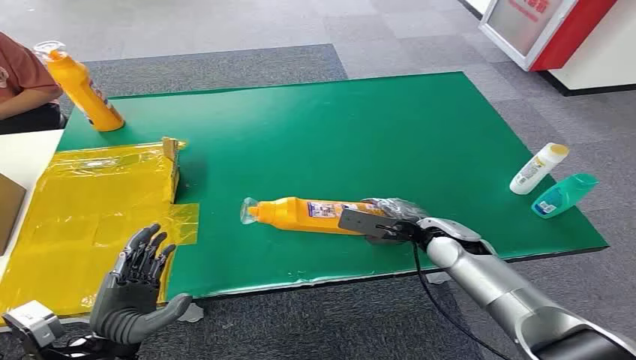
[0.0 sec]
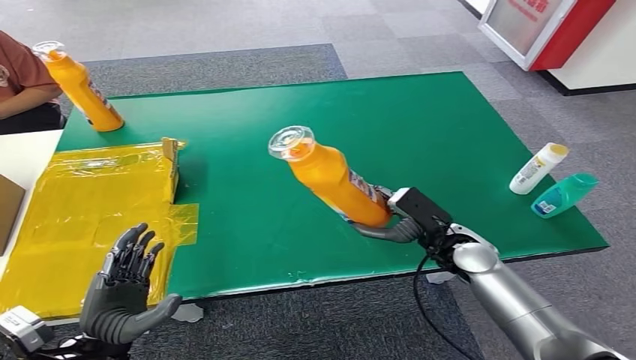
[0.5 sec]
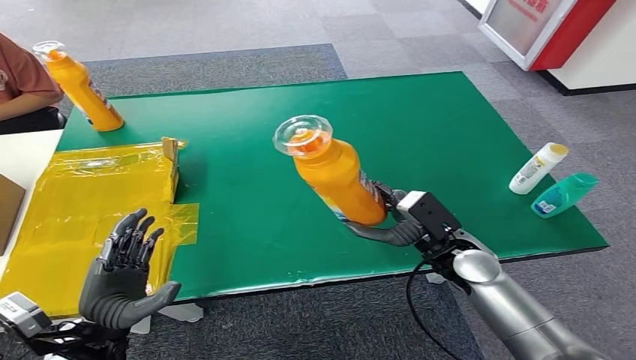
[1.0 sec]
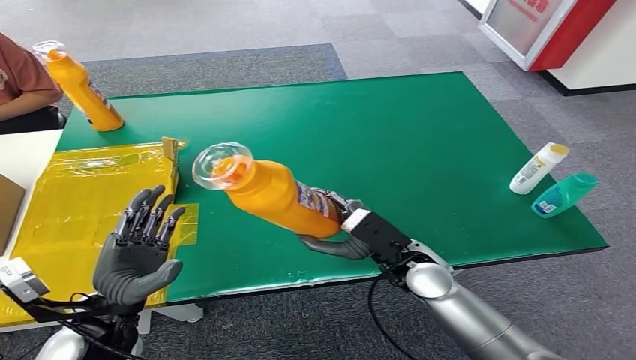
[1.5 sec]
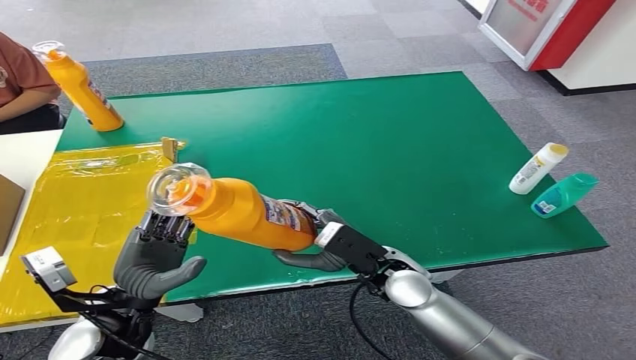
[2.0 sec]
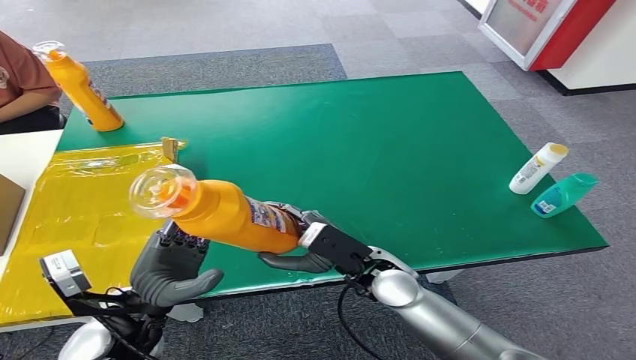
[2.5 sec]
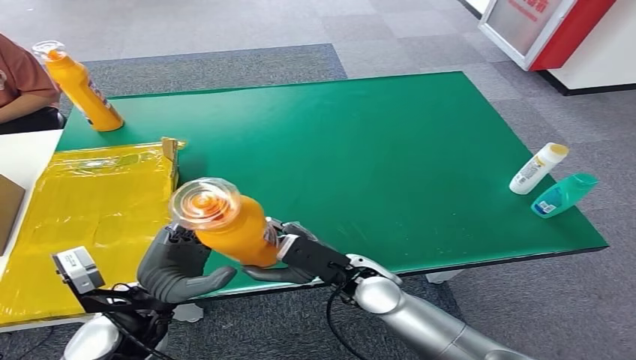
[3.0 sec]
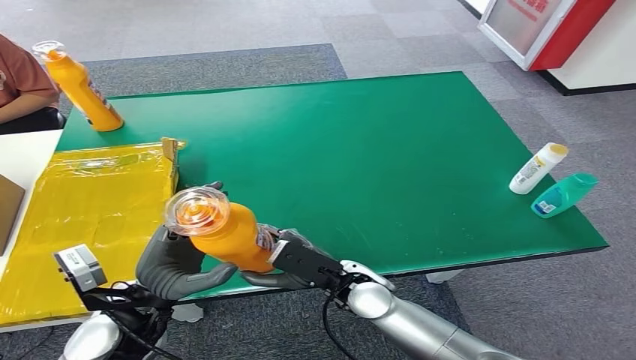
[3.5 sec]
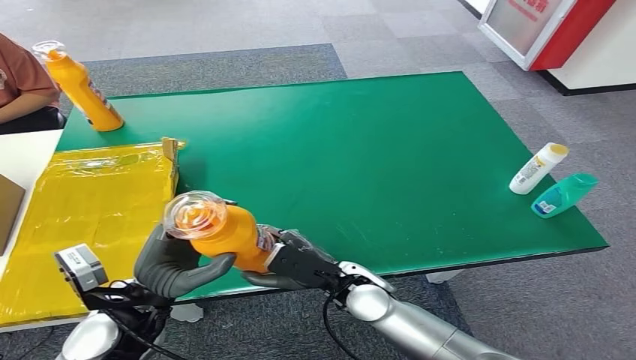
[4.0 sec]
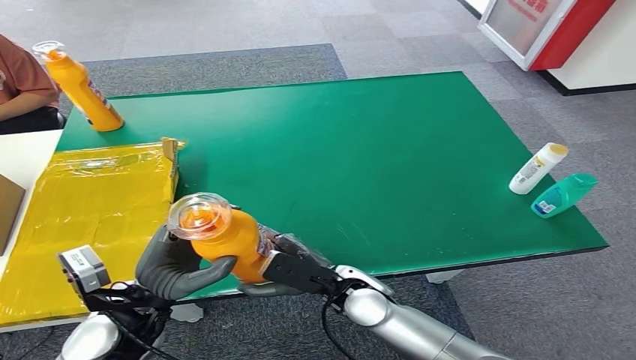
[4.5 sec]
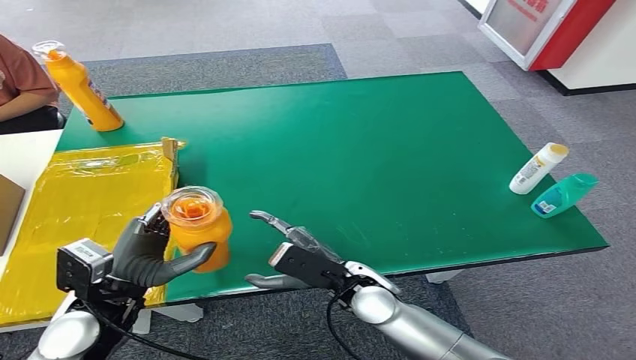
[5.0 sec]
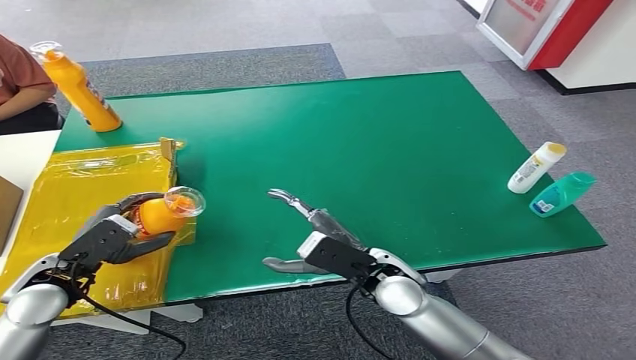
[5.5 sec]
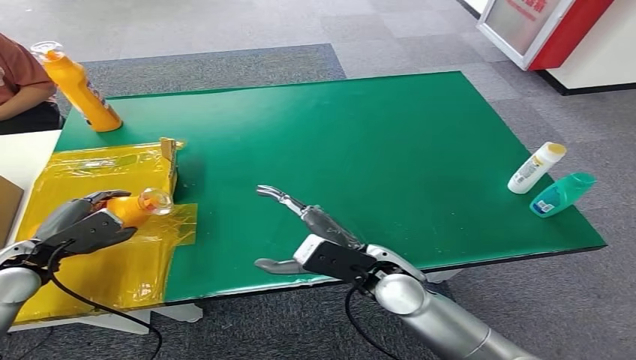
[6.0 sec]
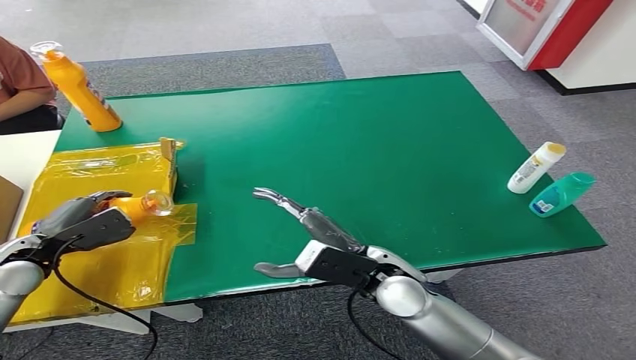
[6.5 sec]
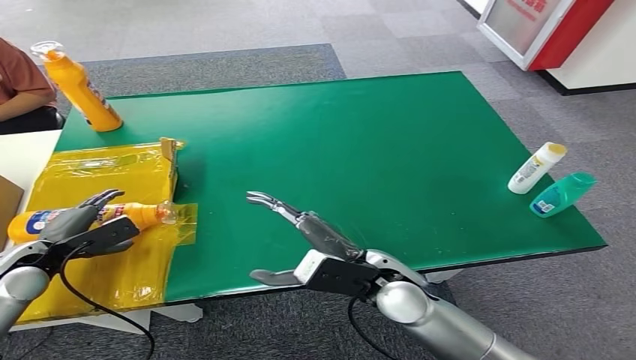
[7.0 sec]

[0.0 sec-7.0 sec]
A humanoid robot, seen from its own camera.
Step, 0.0 sec to 1.5 sec: Pick up the bottle from the table.
Step, 2.0 sec to 7.0 sec: Turn the bottle to the front side.
2.0 sec to 3.5 sec: The right hand heads to the left, covering roughly 5 cm.
5.0 sec to 7.0 sec: The left hand moves to the left and forward, approximately 20 cm, while the right hand heads upward, covering about 5 cm.

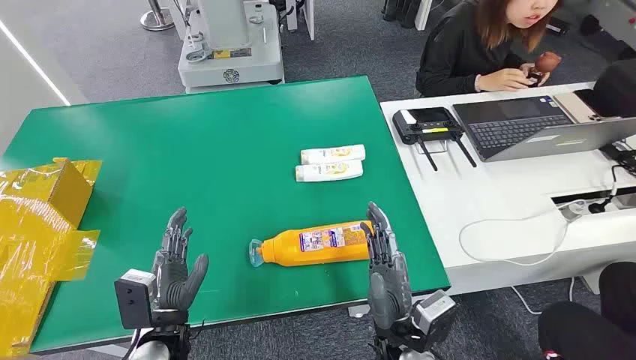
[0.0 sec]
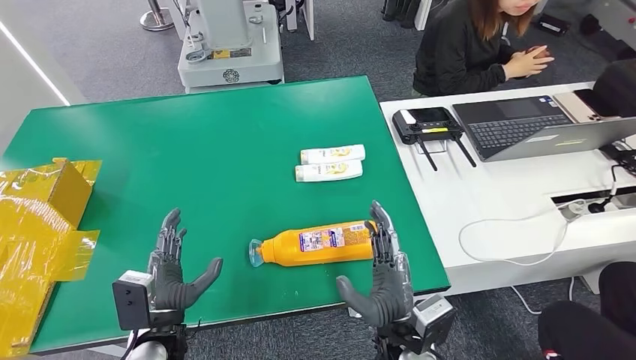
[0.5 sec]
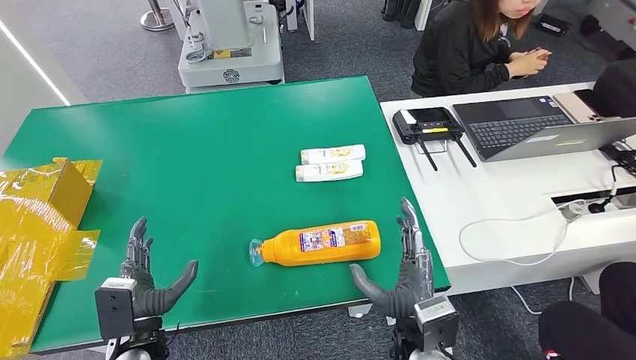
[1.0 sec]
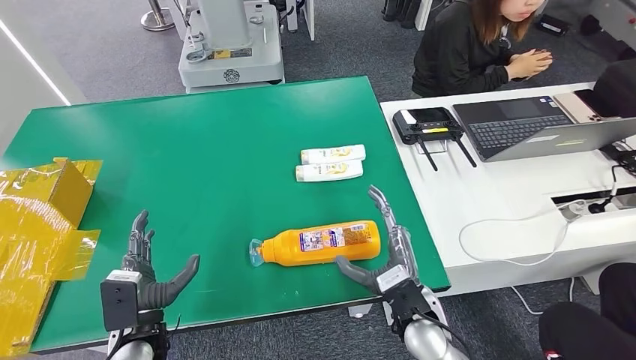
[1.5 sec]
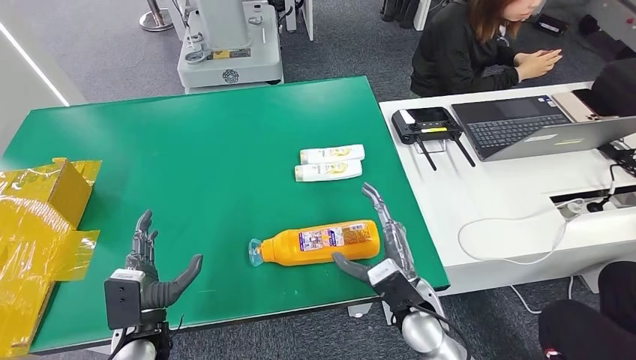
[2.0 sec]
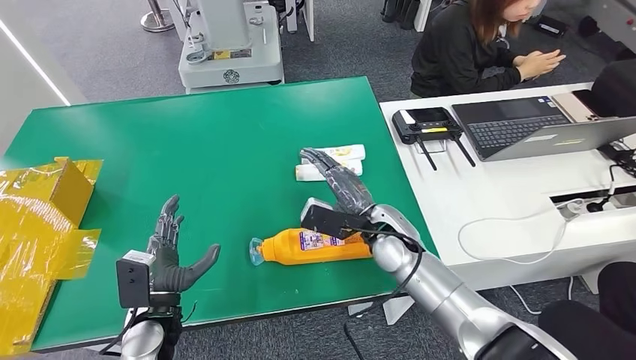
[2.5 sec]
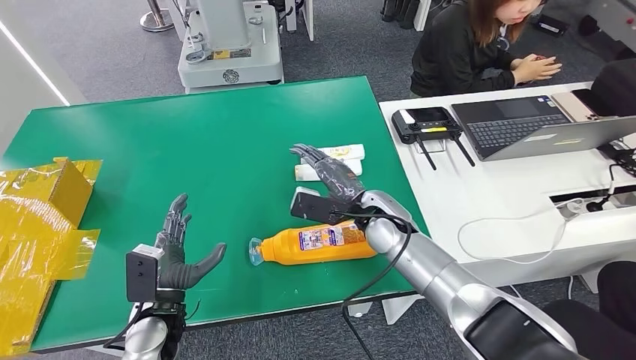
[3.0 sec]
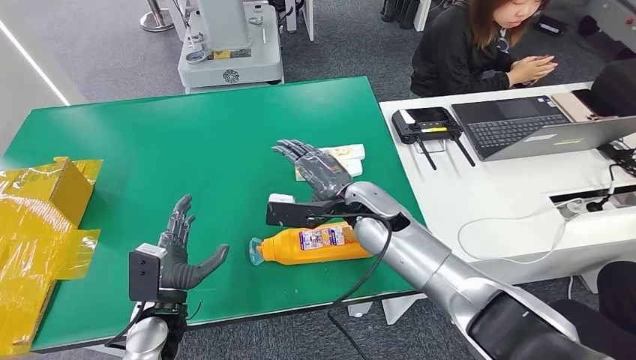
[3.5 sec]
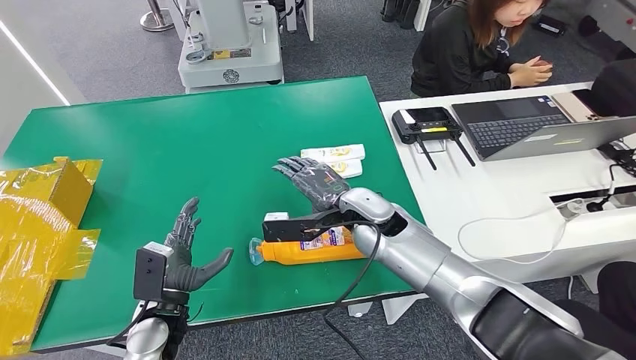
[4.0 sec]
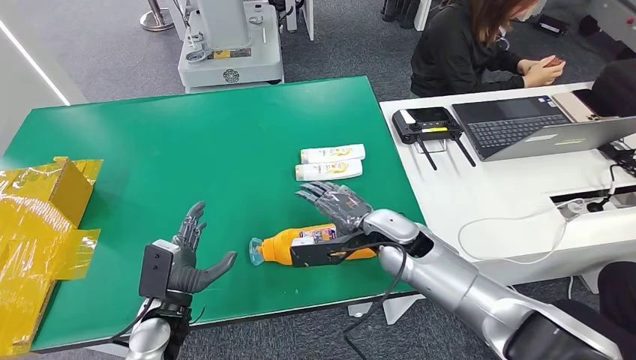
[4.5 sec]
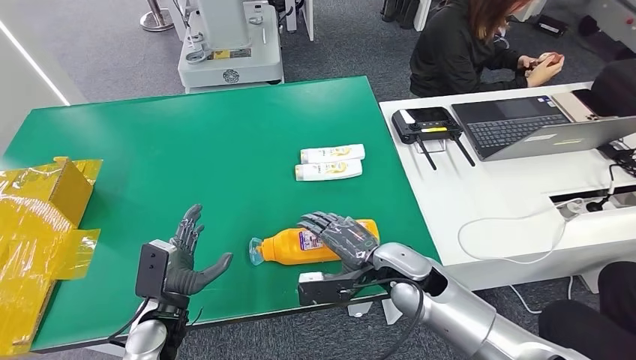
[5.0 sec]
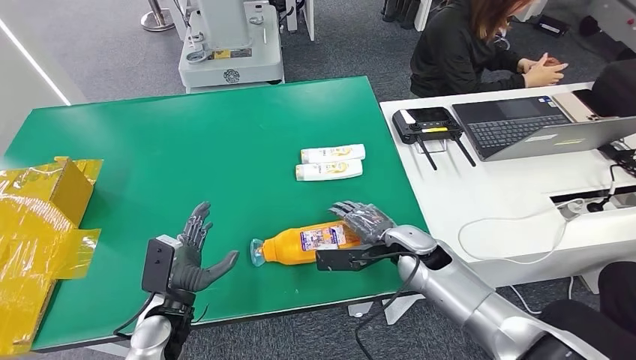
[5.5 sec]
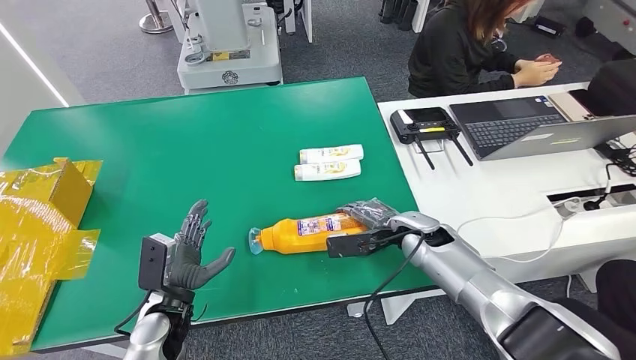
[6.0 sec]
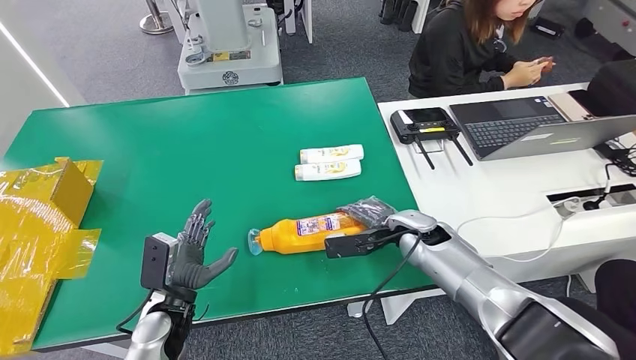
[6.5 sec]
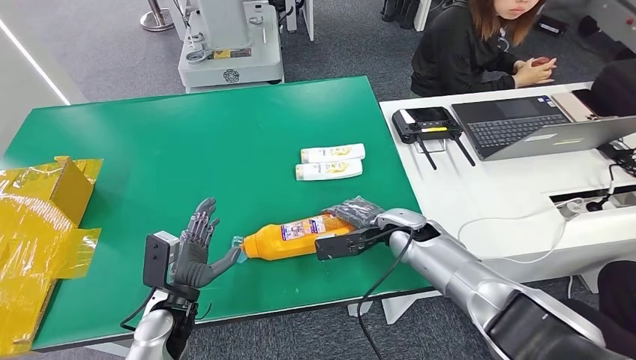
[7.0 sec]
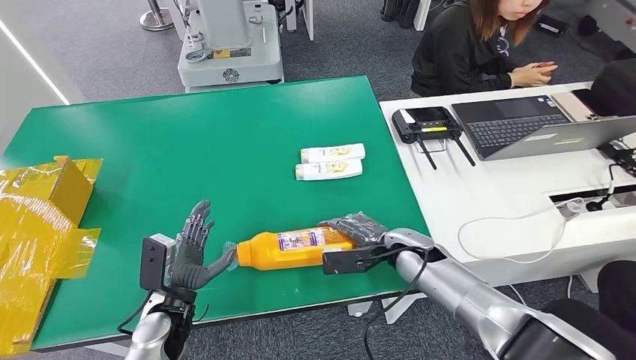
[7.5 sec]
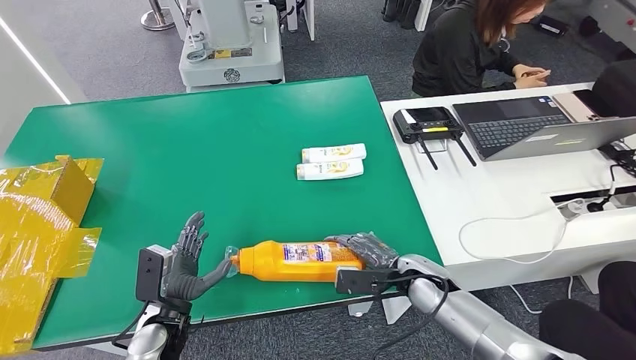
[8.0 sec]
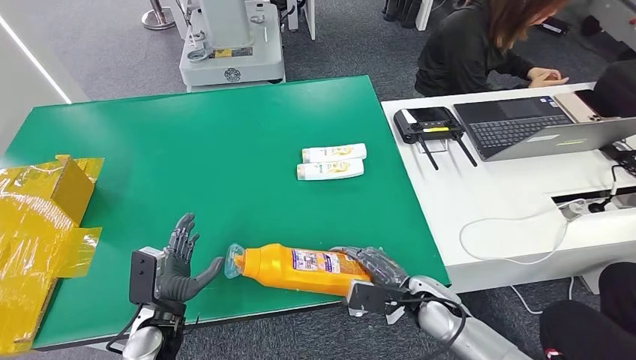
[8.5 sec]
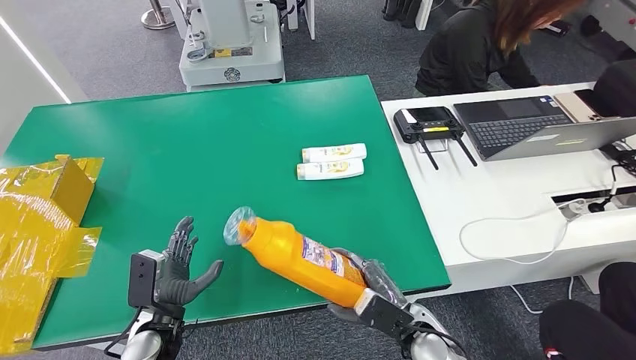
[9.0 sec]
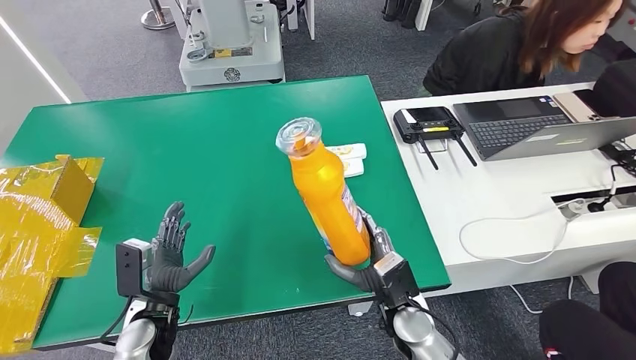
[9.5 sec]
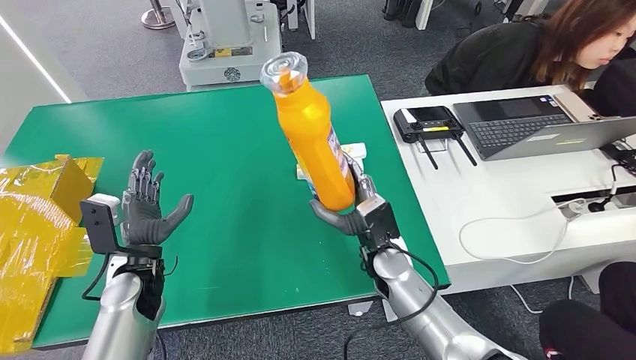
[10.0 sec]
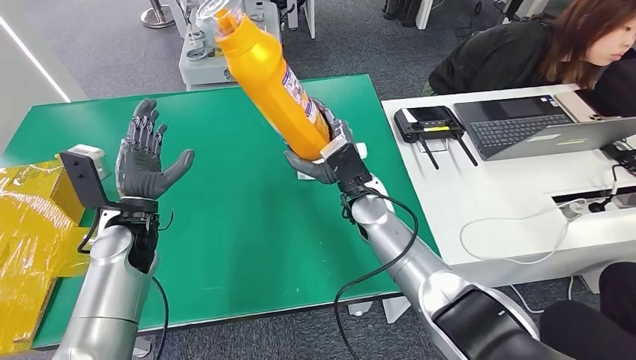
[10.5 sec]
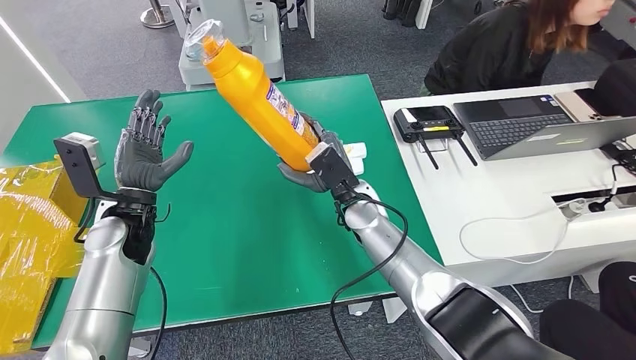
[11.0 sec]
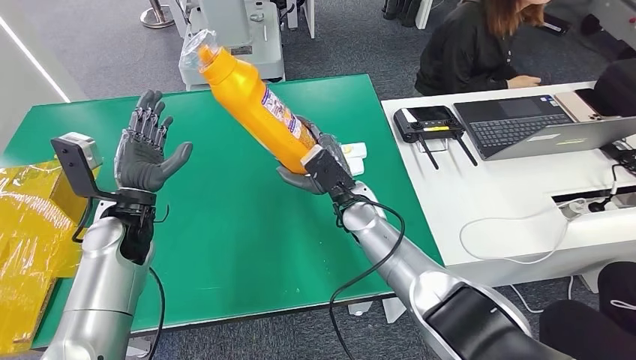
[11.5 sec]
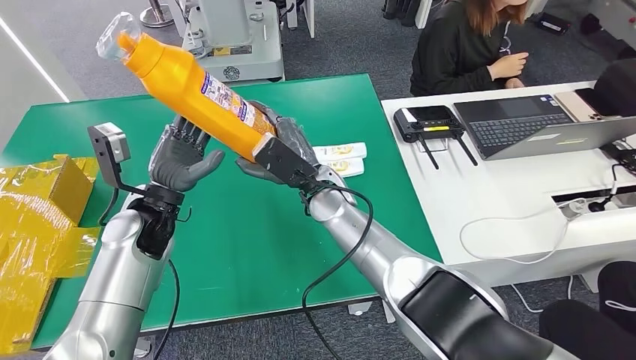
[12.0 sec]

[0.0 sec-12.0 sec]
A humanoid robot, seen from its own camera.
Step, 0.0 sec to 8.5 sec: Pick up the bottle from the table.
2.0 sec to 4.0 sec: The right hand is displaced forward and upward by some 20 cm.
4.0 sec to 6.0 sec: The right hand goes about 15 cm to the right and downward.

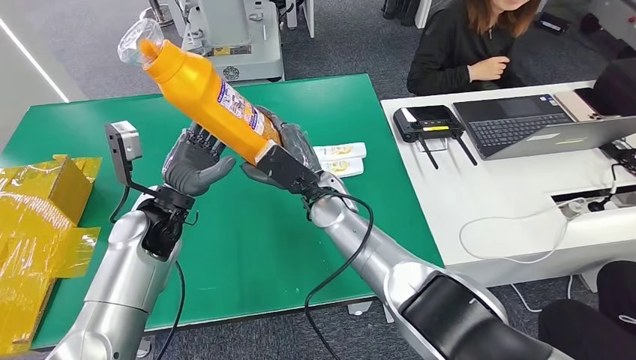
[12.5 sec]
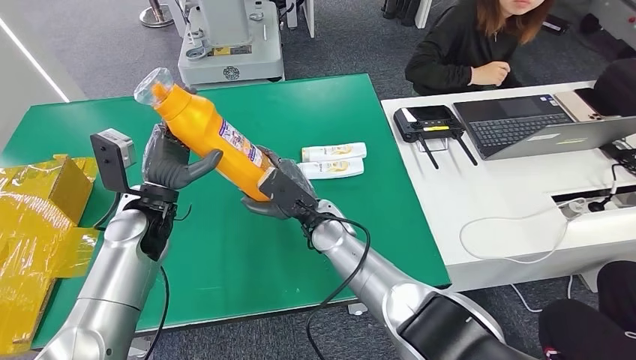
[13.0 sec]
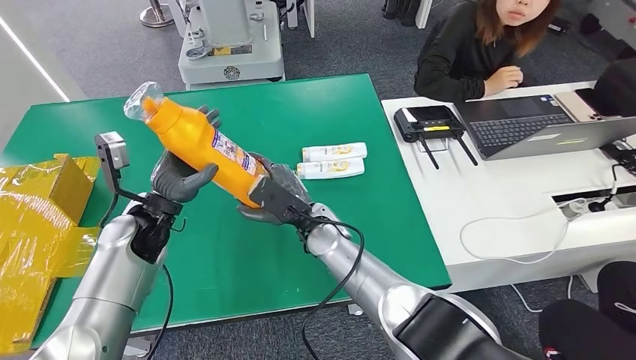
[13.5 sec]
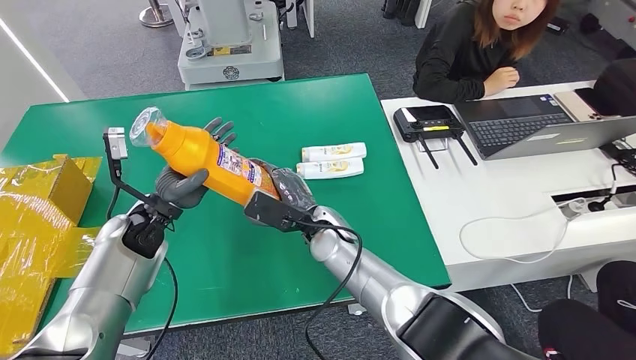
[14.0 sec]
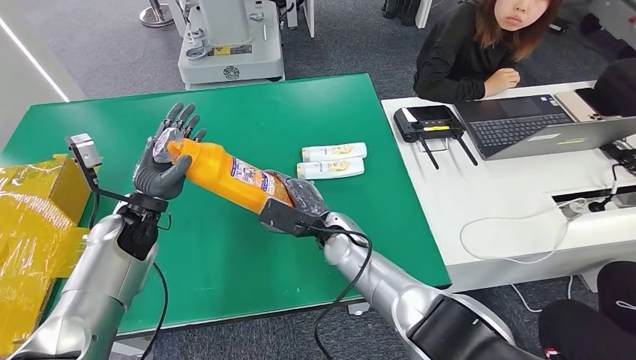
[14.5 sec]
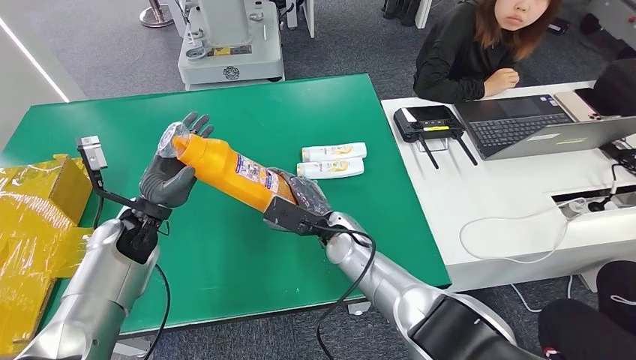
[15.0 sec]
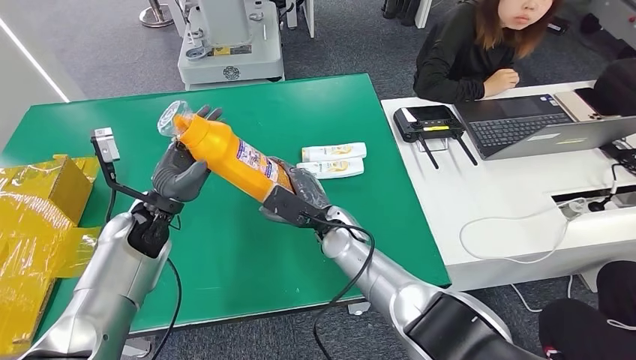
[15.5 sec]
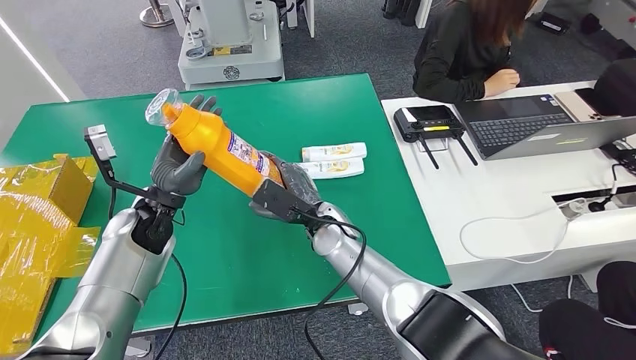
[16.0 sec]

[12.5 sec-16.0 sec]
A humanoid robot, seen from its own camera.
14.5 sec to 16.0 sec: There are only small adjustments of the hands.
